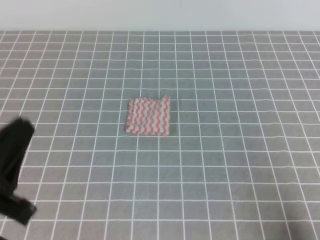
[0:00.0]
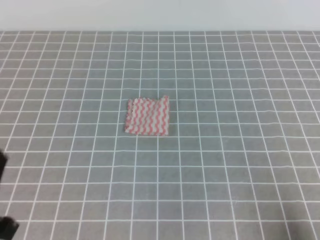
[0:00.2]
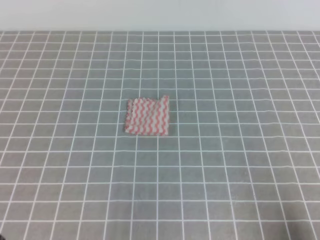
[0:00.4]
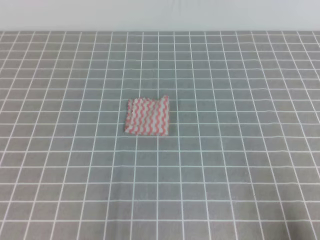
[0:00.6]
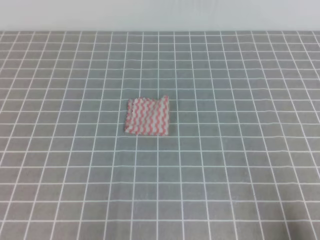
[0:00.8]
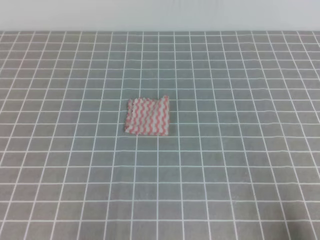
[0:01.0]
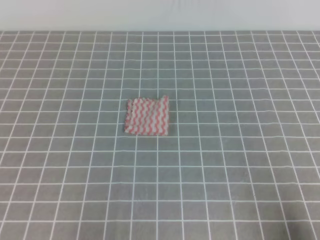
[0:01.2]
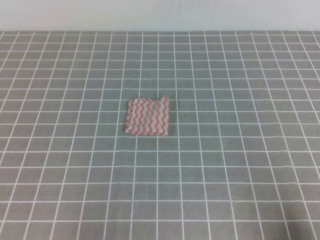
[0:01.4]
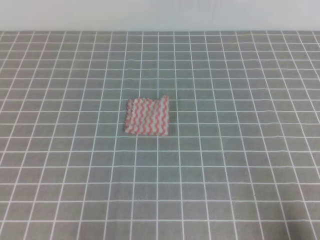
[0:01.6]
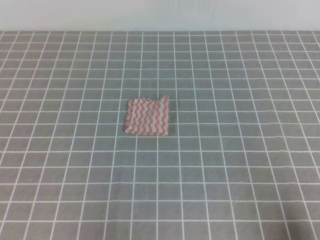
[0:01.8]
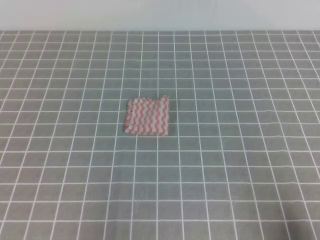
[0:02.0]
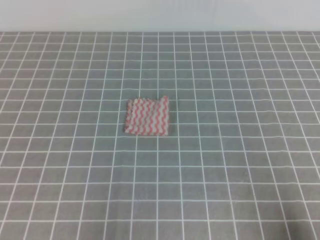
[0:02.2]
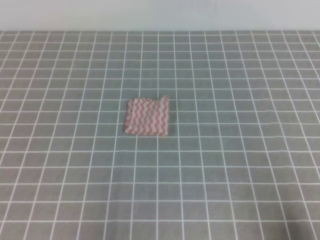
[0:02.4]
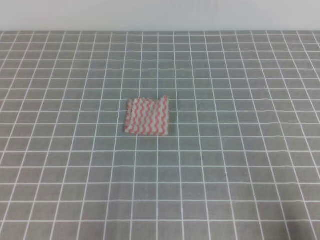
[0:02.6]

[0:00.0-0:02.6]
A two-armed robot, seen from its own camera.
Step, 0:00.0 to 0:02.6: Fold the towel.
0:00.0 to 0:01.2: The left gripper moves downward, about 10 cm.
